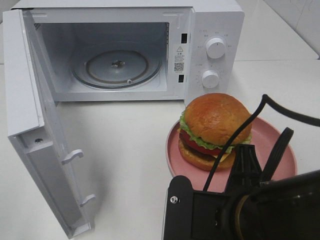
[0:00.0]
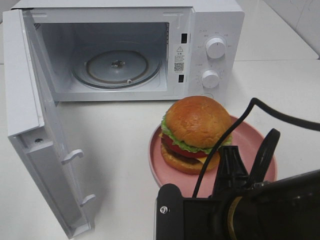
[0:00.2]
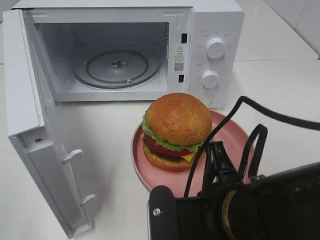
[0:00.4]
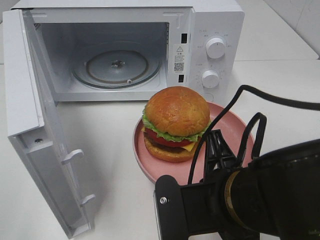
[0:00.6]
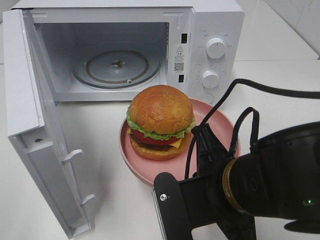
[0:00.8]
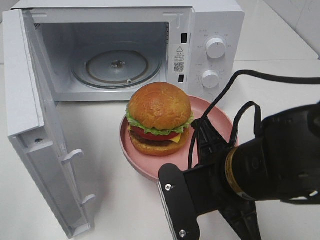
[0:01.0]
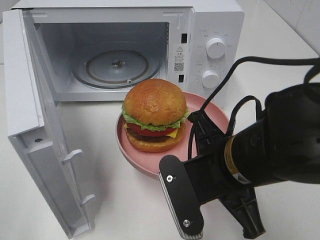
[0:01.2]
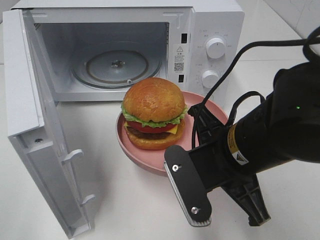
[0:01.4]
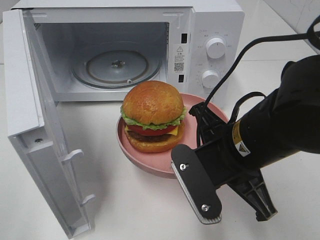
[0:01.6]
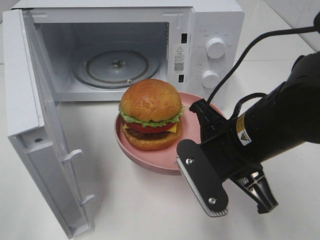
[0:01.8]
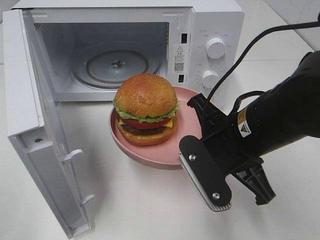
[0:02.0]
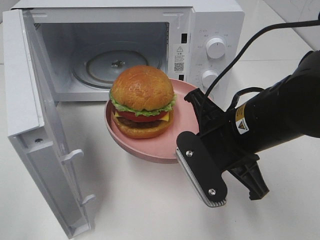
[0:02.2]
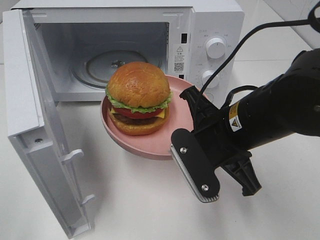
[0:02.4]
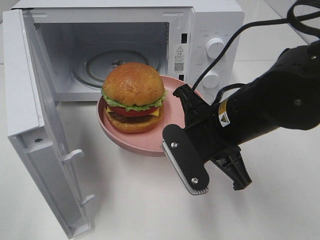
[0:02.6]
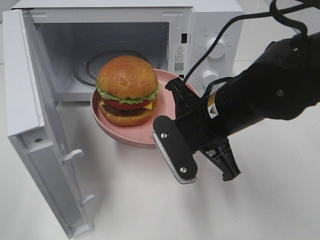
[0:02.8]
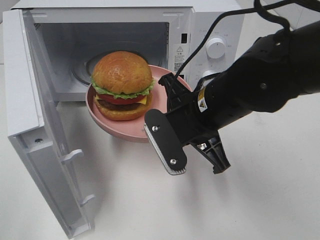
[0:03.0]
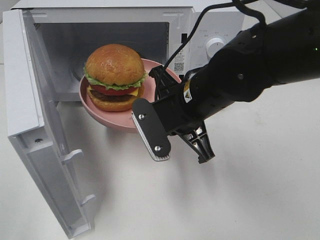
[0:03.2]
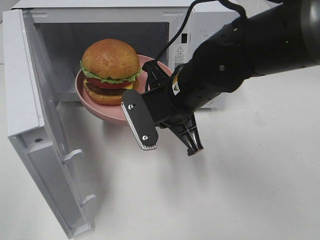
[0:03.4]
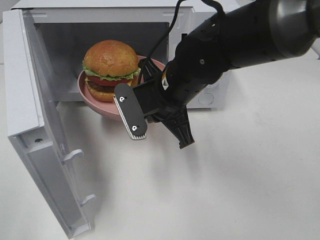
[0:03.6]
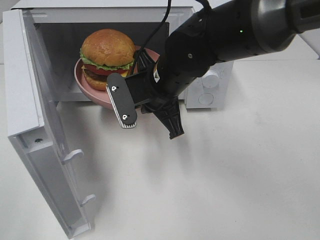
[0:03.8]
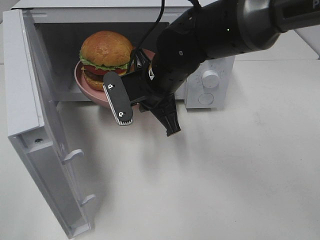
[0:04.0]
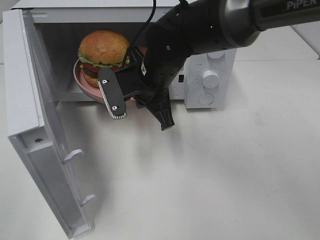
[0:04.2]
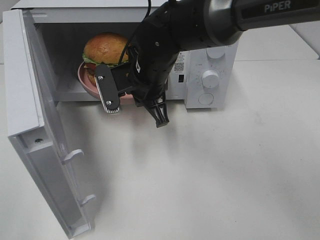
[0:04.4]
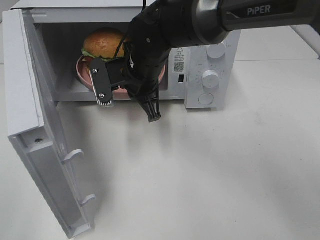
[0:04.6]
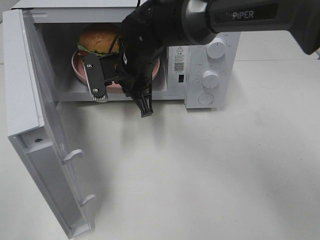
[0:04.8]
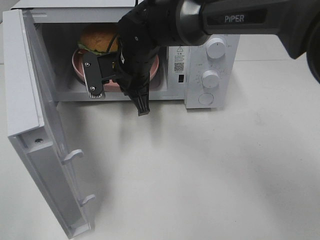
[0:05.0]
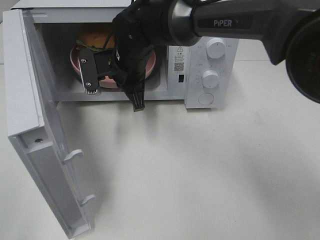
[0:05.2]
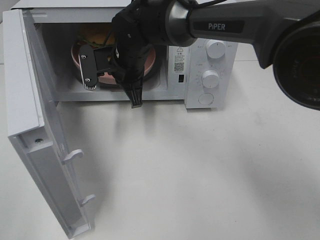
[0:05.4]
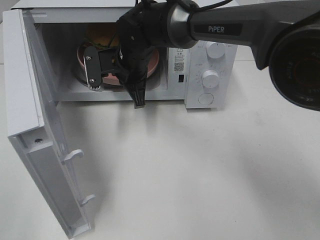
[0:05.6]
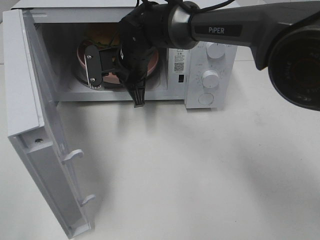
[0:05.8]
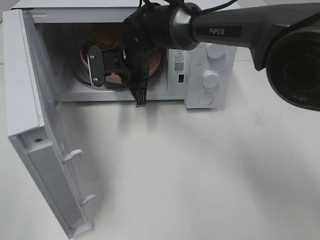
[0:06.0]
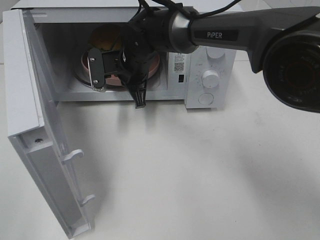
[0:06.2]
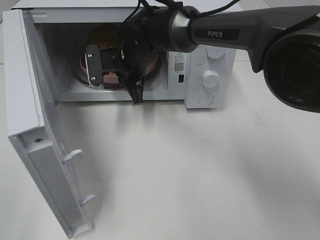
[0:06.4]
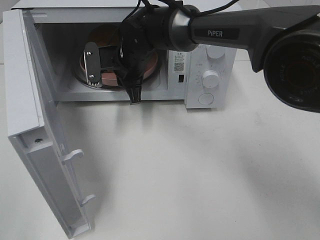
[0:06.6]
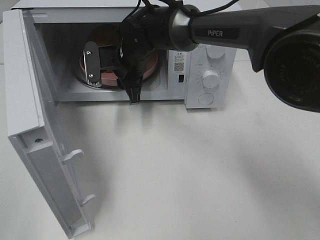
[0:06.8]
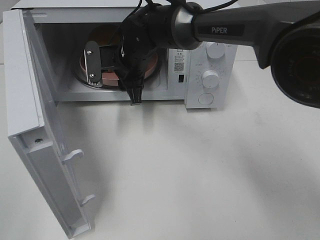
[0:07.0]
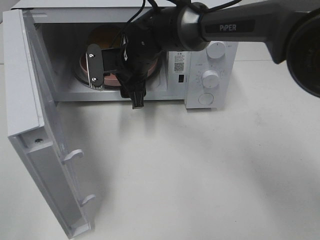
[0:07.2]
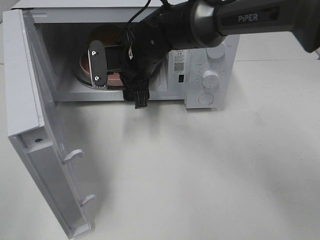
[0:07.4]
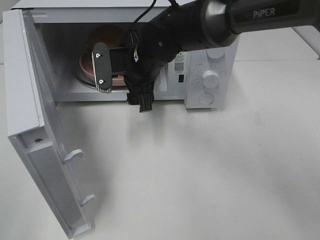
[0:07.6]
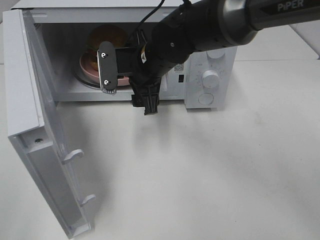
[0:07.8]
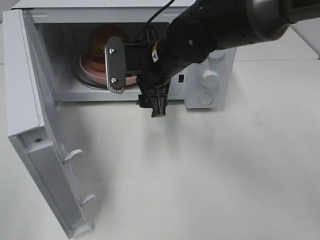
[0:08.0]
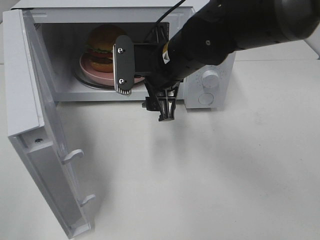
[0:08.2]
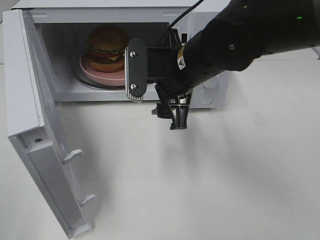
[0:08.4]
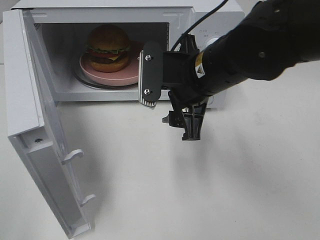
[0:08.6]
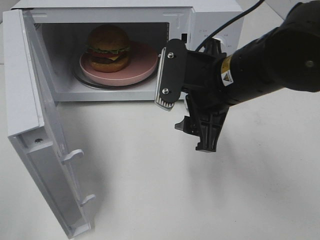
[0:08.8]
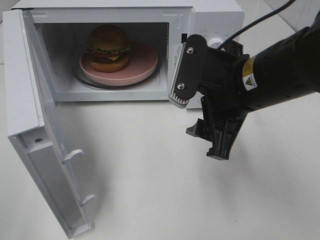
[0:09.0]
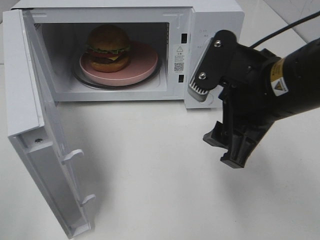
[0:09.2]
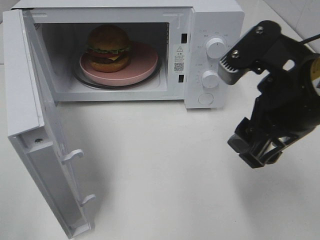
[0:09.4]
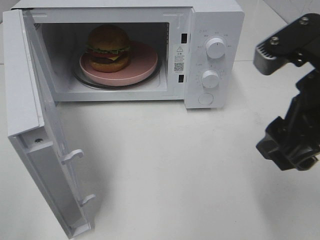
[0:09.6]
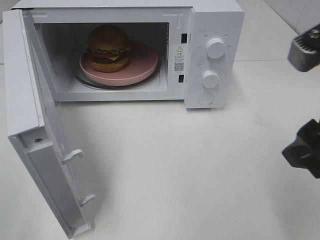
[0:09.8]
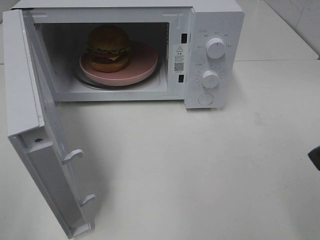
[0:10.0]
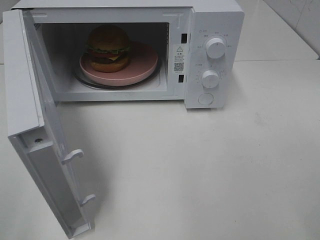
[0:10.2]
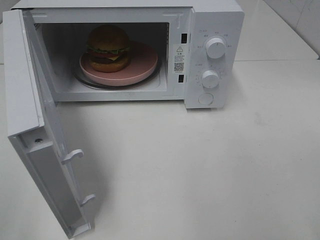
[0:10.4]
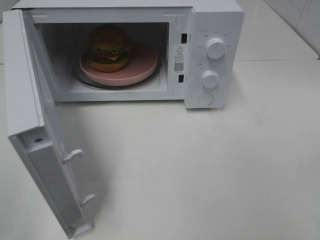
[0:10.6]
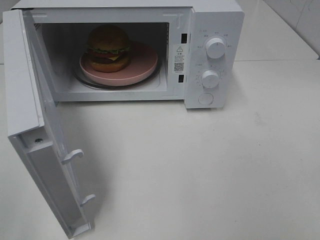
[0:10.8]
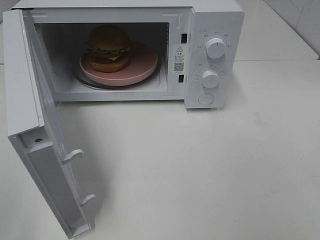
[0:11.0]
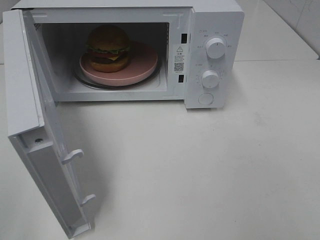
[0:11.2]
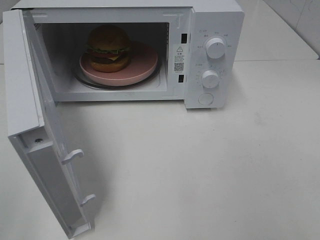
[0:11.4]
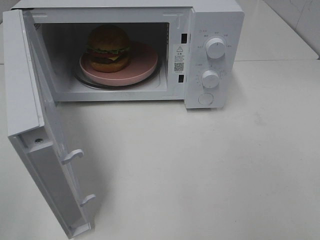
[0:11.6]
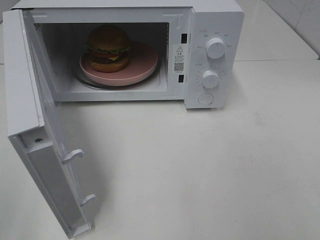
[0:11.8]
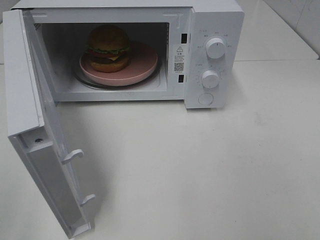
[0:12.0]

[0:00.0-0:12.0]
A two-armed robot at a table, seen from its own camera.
Task of the whole recording: Heat the burger.
Step, 0:00.0 to 0:06.6: Right hand: place the plate in the microwave.
0:00.0 to 0:01.6: The right gripper travels forward by about 10 cm.
0:01.6 to 0:03.0: The right gripper shifts approximately 5 cm forward.
0:03.0 to 0:04.4: The right gripper is displaced forward and to the left by roughly 15 cm.
0:04.4 to 0:06.0: The right gripper travels forward by about 5 cm.
0:06.0 to 0:07.6: The right gripper ends up some 5 cm from where it was, and opens up.
0:07.6 to 0:09.0: The right gripper goes some 20 cm backward and to the right.
0:09.0 to 0:10.4: The right gripper travels backward, to the right and upward by roughly 20 cm.

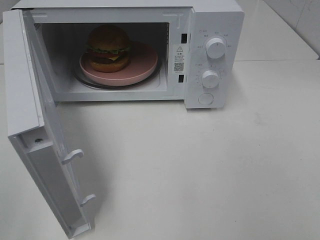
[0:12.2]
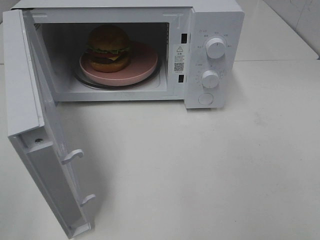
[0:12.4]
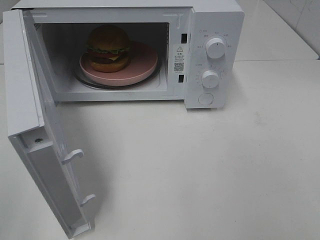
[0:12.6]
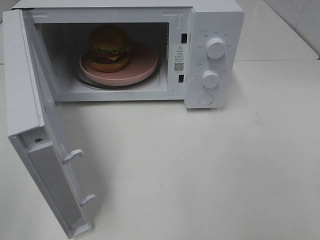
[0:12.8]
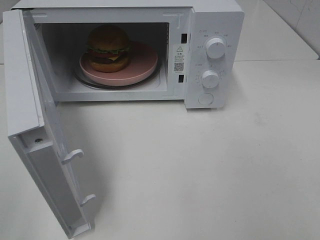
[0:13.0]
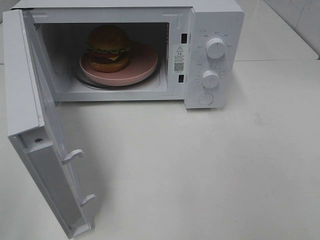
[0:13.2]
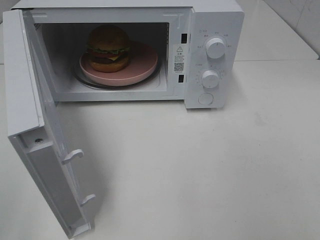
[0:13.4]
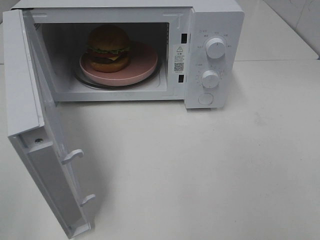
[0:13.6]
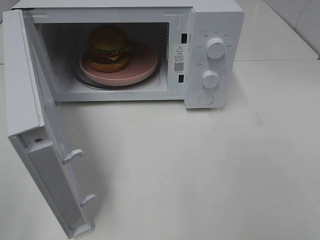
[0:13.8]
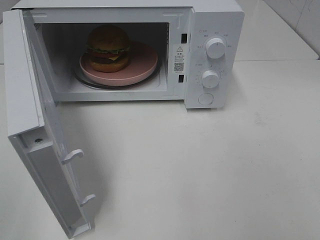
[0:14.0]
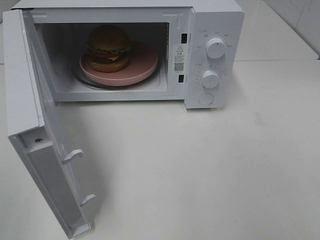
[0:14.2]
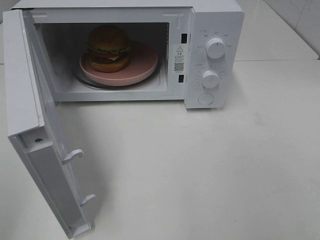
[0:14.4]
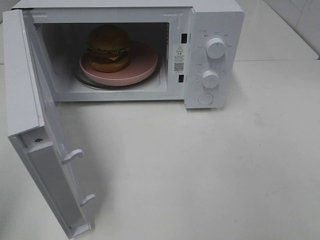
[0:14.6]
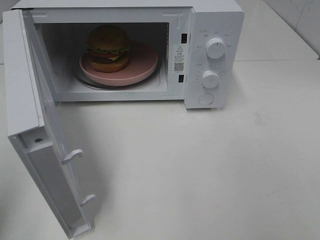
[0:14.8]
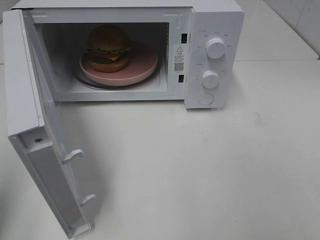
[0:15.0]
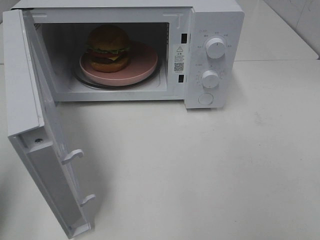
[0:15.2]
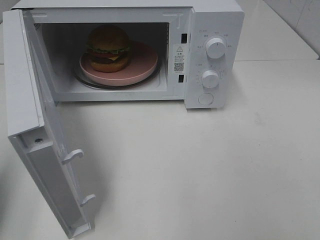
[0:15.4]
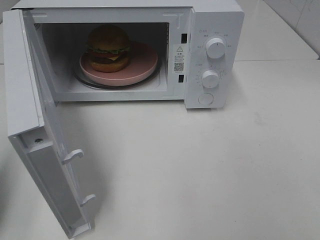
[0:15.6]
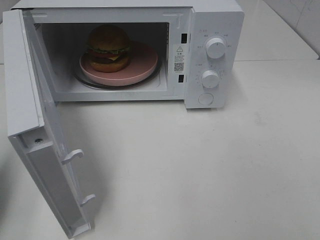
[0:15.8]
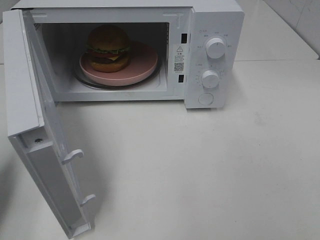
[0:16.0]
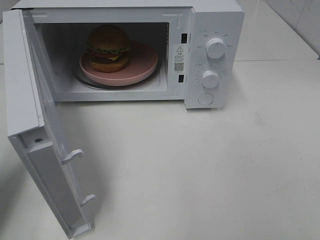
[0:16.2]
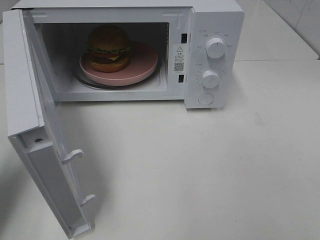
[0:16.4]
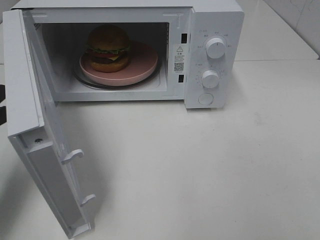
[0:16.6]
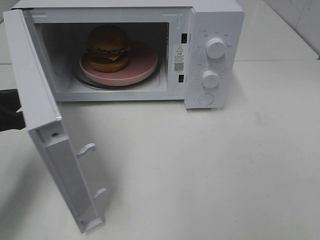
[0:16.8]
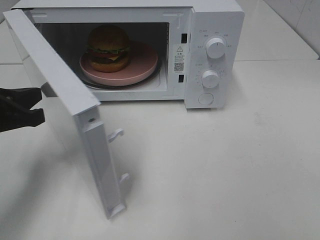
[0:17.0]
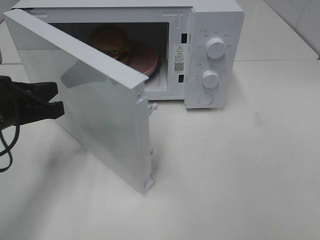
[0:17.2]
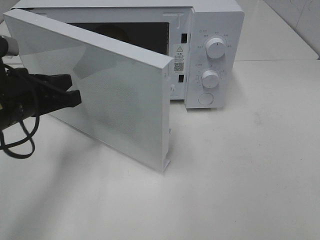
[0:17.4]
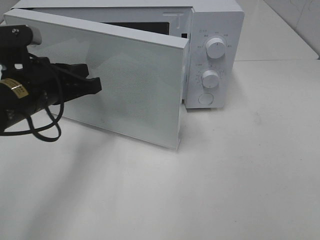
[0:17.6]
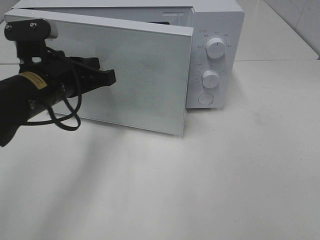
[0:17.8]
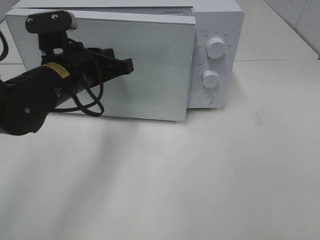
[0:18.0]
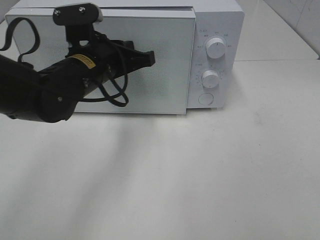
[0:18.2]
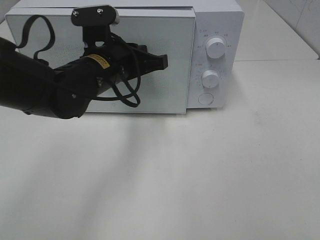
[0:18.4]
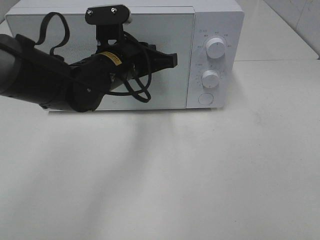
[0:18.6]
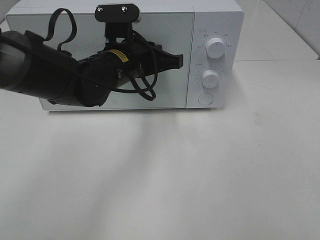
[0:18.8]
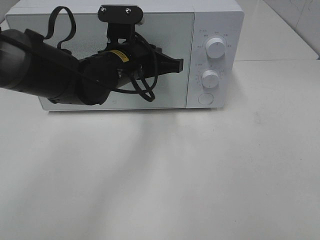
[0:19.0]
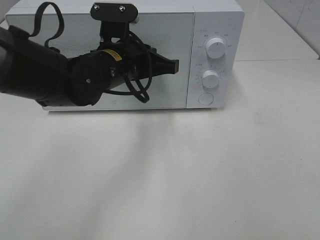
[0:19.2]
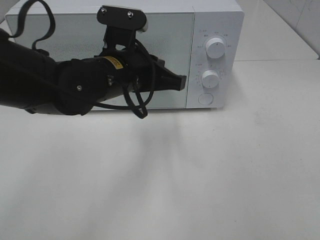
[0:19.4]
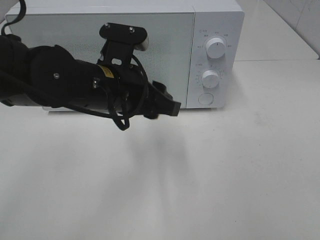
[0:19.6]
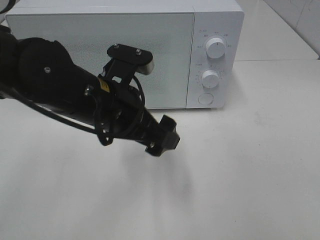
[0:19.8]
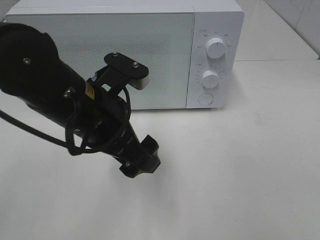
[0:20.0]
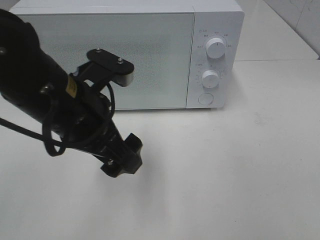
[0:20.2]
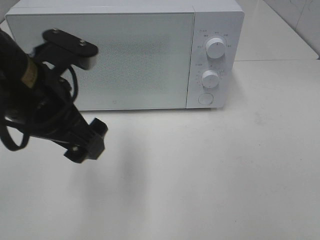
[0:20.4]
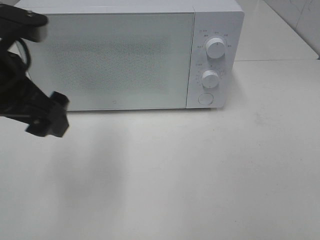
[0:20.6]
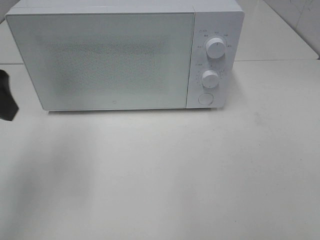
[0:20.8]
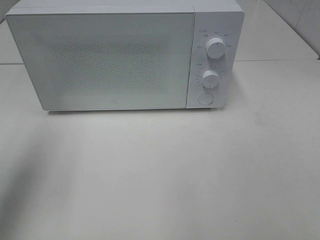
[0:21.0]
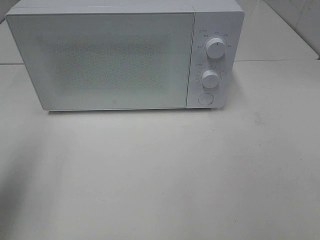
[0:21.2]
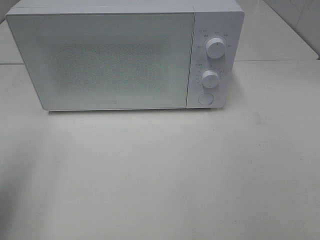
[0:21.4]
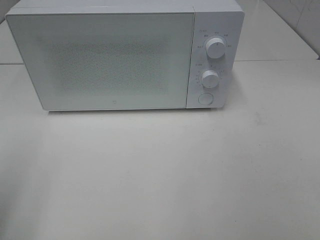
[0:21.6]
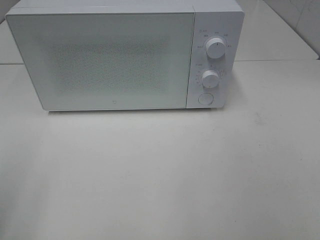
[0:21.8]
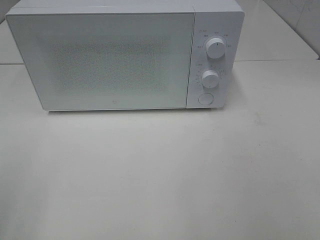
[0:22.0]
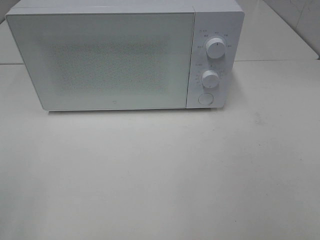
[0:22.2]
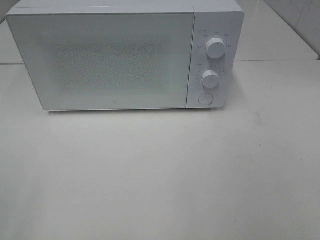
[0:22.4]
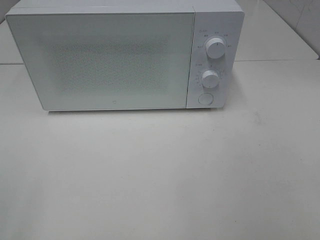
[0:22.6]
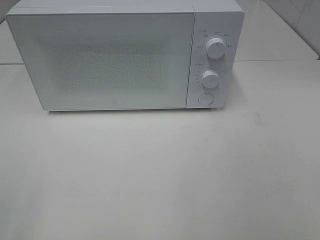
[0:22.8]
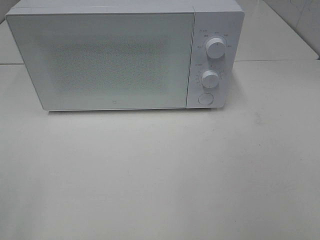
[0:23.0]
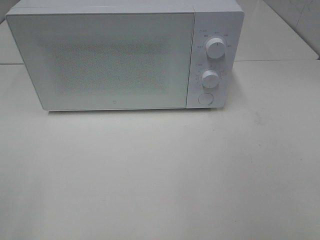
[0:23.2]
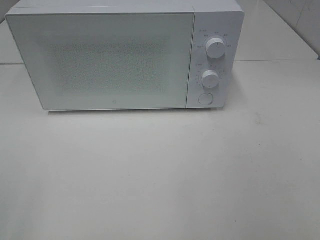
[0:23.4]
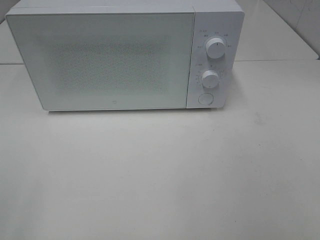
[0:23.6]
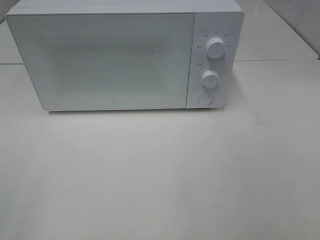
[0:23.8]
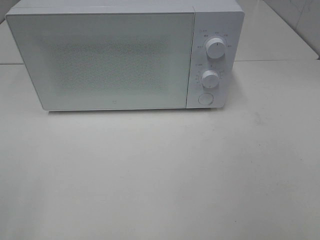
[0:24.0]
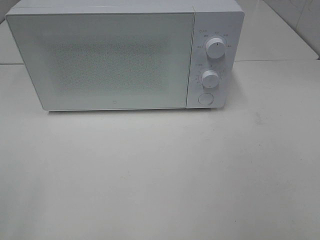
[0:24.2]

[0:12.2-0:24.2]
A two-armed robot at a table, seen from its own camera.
Task of the whole recording: Heat the burger.
Step, 0:12.2 to 0:19.2: Left hand: close the microwave door.
0:12.2 to 0:13.8: Both grippers stay put.
0:13.8 to 0:15.2: The left gripper is displaced forward by about 10 cm, and closes up.
0:15.2 to 0:16.6: The left gripper moves forward and downward, roughly 10 cm.
0:16.6 to 0:18.2: The left gripper travels to the right and forward by some 20 cm.
0:18.2 to 0:19.8: The left gripper travels backward by some 10 cm, and opens its fingers.
0:19.8 to 0:21.2: The left gripper travels to the left and upward by some 25 cm.
0:21.2 to 0:22.6: The left gripper goes some 15 cm backward.
